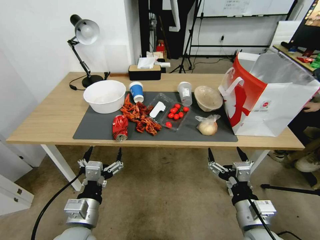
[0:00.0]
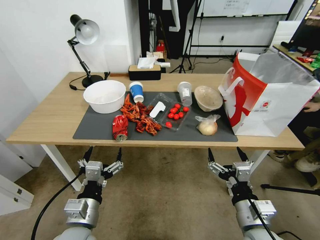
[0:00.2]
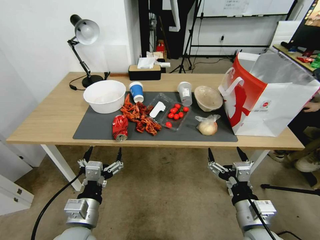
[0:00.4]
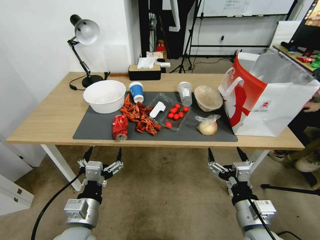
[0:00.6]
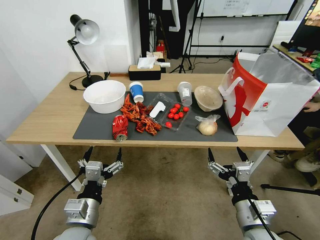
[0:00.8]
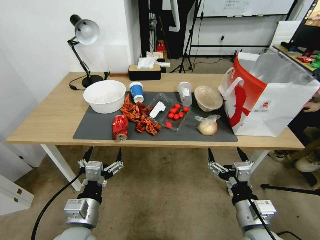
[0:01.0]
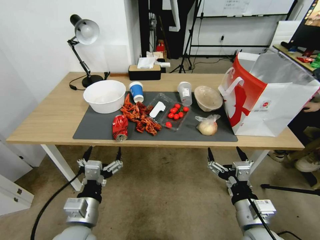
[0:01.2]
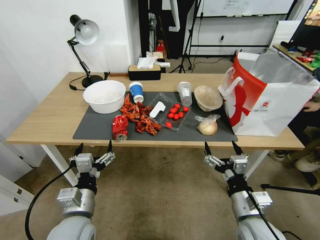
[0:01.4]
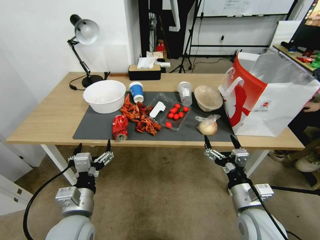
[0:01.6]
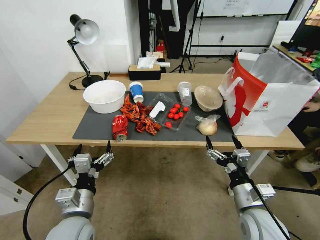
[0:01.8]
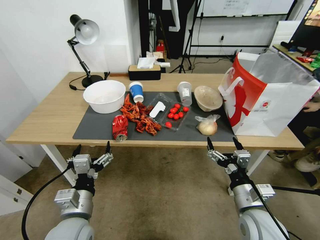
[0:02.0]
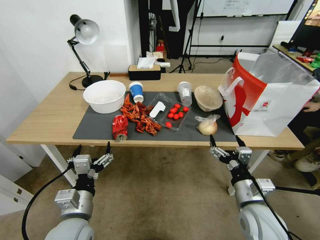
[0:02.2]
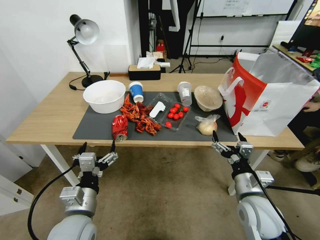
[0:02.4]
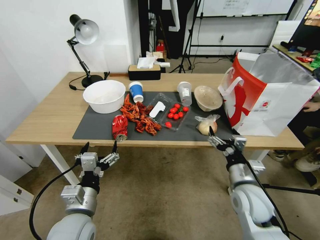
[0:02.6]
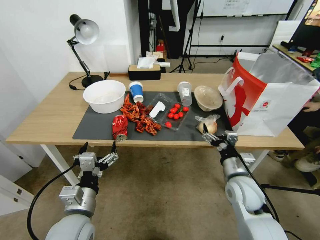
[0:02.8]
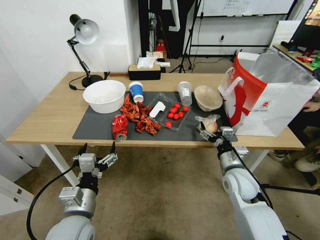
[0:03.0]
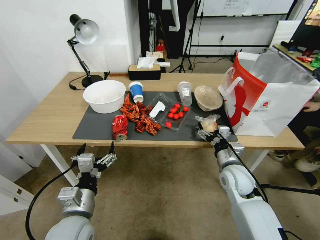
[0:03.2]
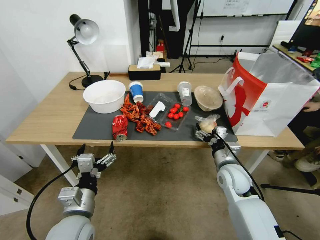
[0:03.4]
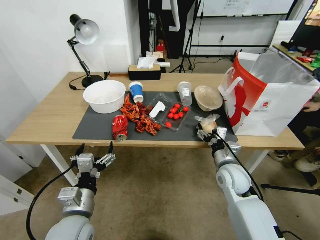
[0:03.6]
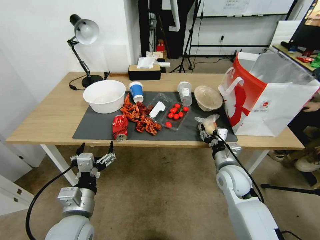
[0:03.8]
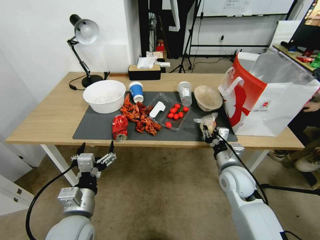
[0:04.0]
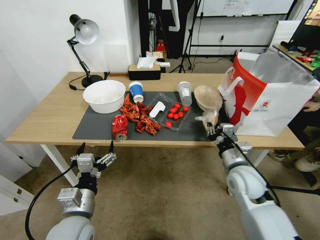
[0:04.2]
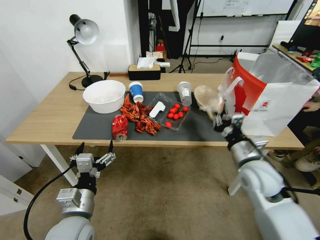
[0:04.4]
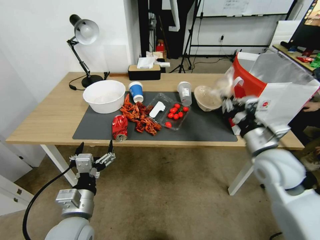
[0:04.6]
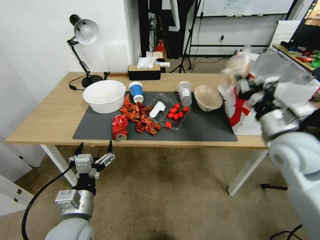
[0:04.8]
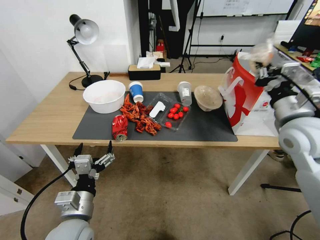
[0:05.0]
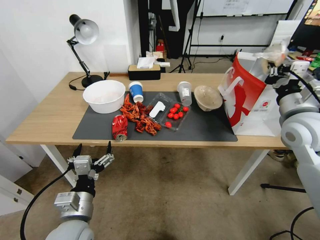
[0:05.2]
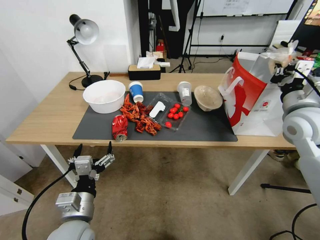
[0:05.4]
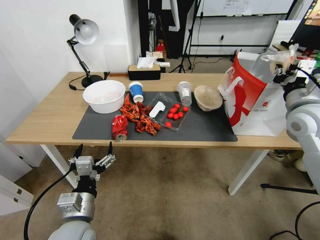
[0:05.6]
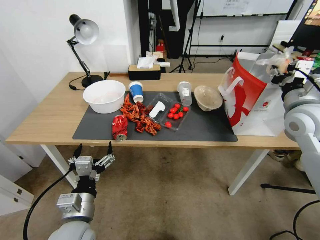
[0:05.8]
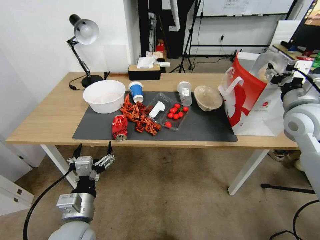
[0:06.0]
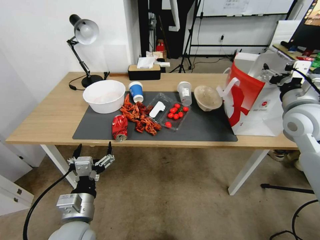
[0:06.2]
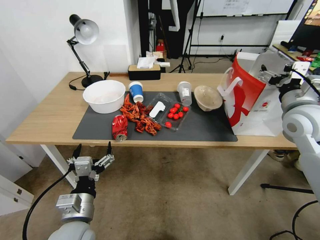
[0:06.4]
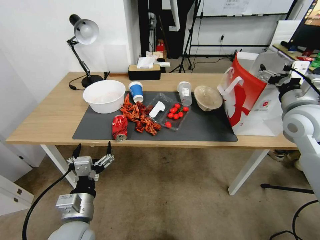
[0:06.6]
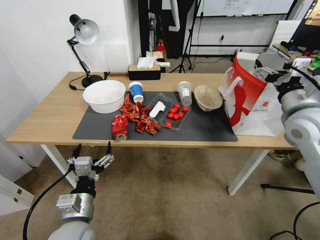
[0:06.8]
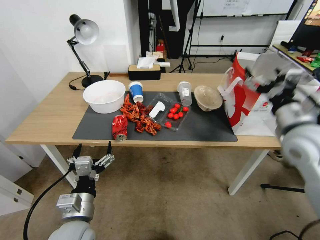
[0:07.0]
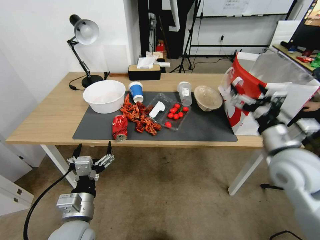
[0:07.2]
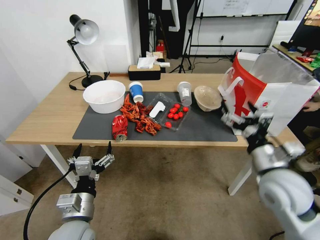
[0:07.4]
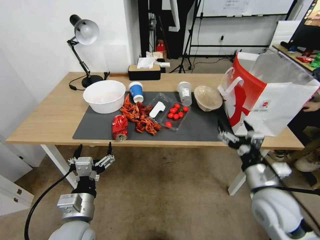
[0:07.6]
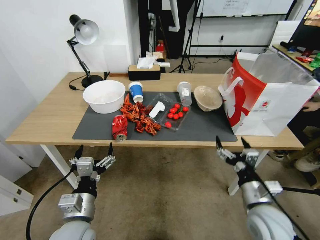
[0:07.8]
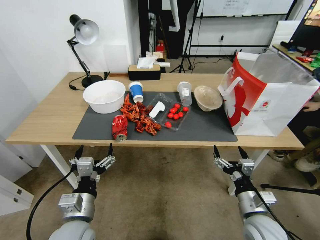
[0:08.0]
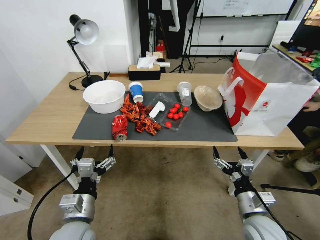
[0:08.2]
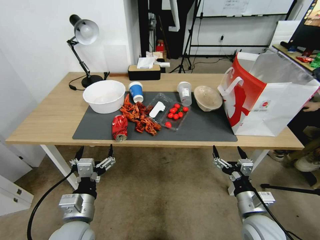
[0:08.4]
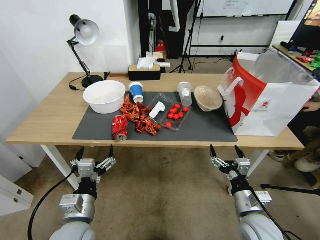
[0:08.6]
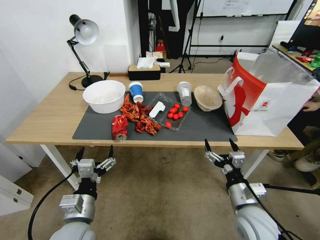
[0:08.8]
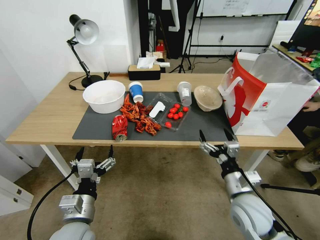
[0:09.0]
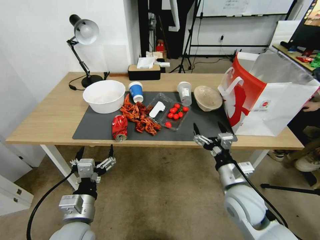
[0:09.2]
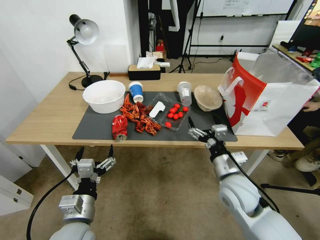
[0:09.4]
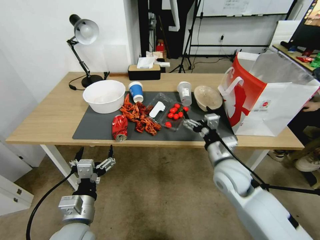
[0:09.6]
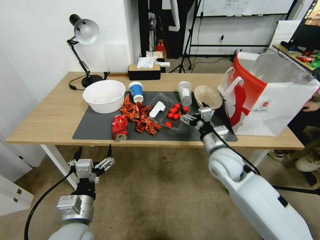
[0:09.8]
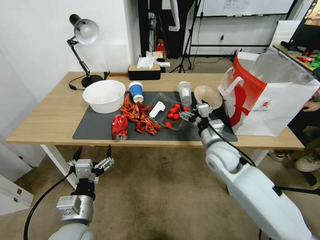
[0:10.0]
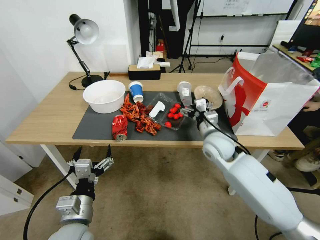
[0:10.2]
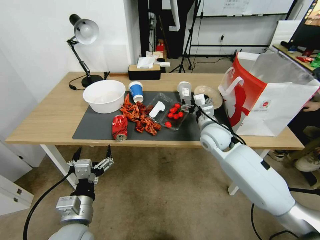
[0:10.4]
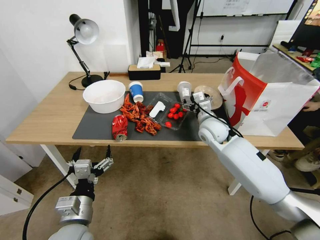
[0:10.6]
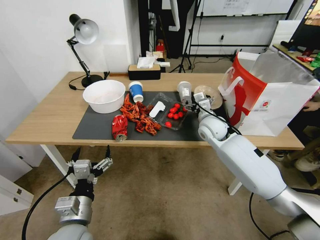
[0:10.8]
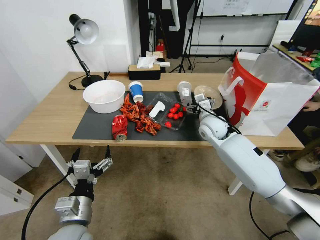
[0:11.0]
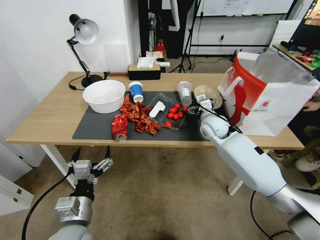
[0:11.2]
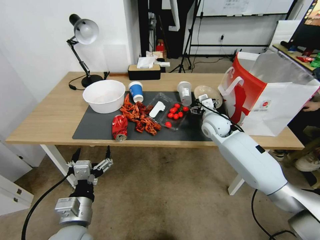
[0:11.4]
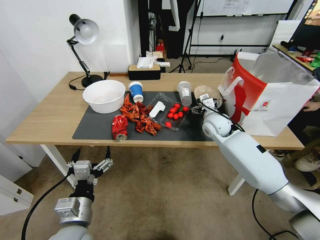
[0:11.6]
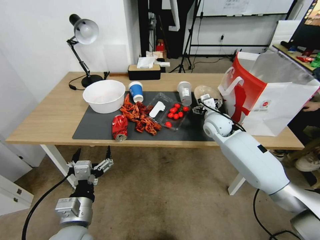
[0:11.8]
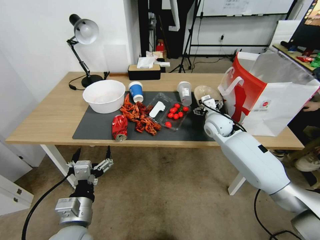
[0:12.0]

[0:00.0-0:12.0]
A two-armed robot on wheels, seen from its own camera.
0:01.6 to 0:03.0: The right gripper moves forward, roughly 15 cm.
0:03.0 to 0:04.4: The right gripper goes about 10 cm upward, and closes its fingers.
0:04.4 to 0:06.0: The right gripper moves upward, to the right and forward, roughly 20 cm, and opens up.
0:06.0 to 0:07.6: The right gripper is displaced downward, backward and to the left by some 25 cm.
0:09.0 to 0:10.4: The right gripper is displaced forward by approximately 20 cm.
0:10.4 to 0:12.0: The right gripper shifts approximately 5 cm forward.

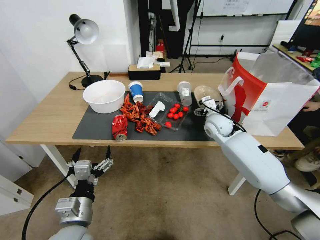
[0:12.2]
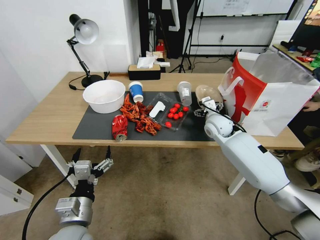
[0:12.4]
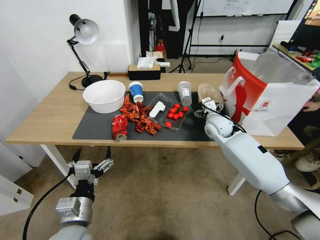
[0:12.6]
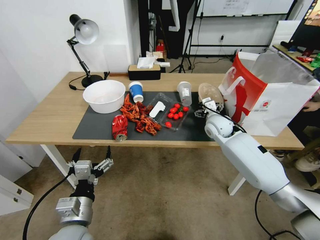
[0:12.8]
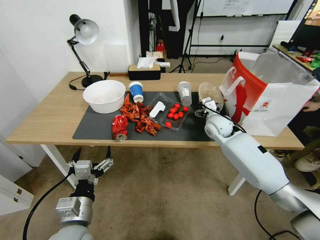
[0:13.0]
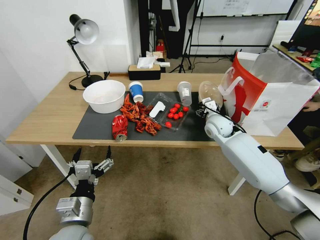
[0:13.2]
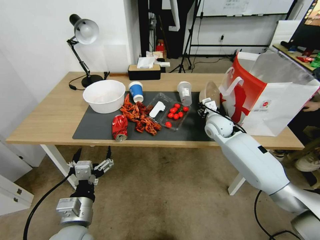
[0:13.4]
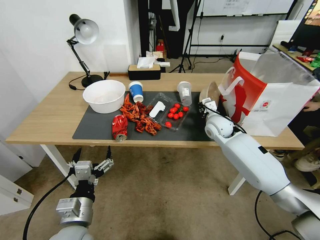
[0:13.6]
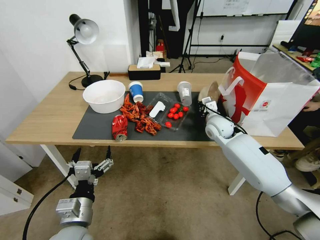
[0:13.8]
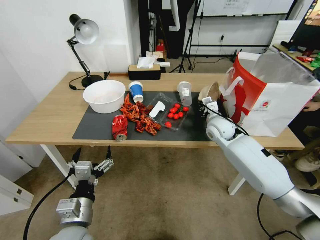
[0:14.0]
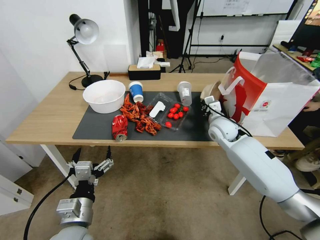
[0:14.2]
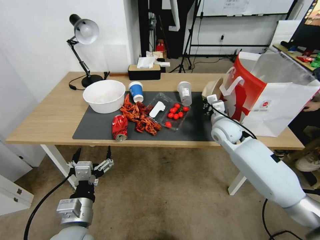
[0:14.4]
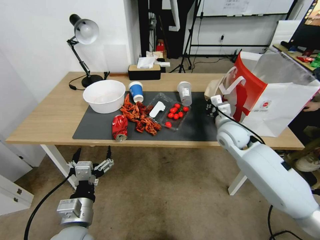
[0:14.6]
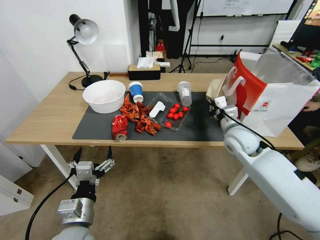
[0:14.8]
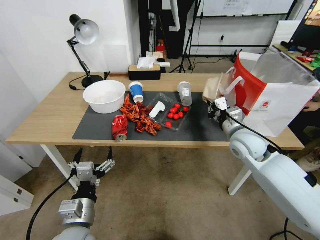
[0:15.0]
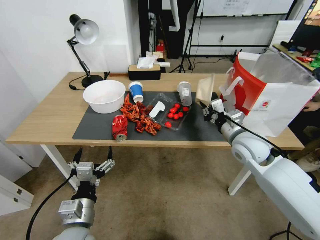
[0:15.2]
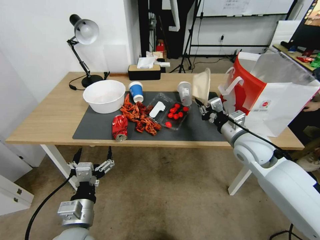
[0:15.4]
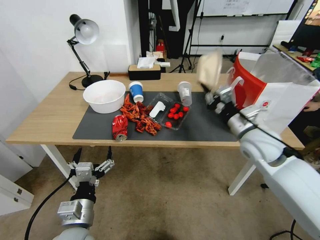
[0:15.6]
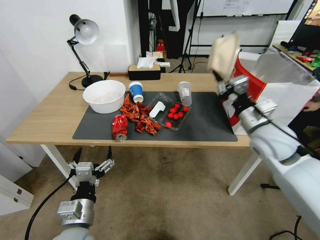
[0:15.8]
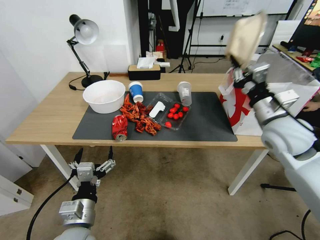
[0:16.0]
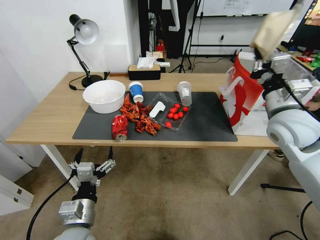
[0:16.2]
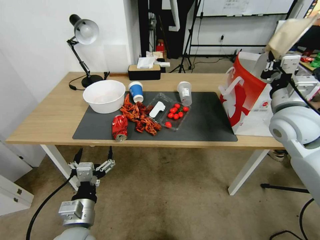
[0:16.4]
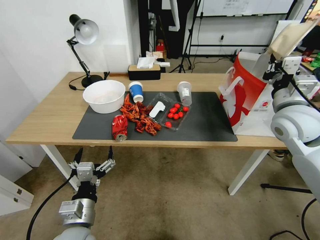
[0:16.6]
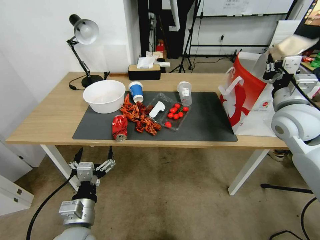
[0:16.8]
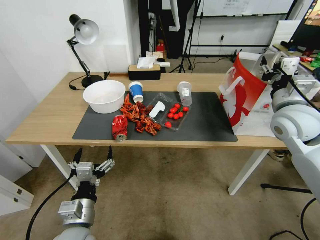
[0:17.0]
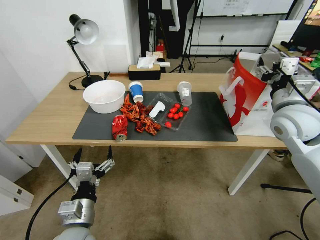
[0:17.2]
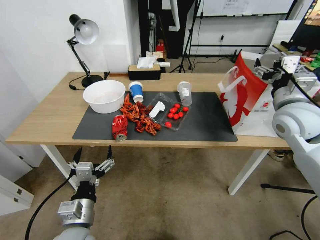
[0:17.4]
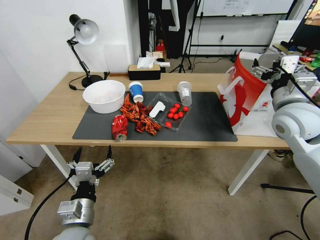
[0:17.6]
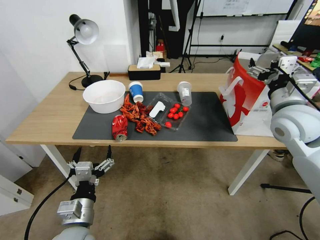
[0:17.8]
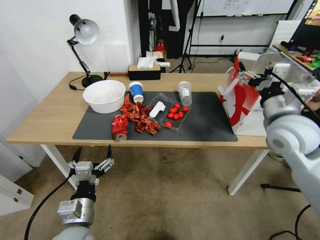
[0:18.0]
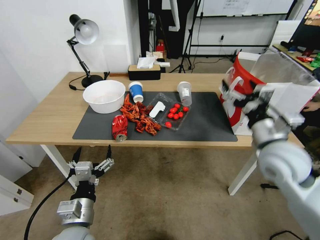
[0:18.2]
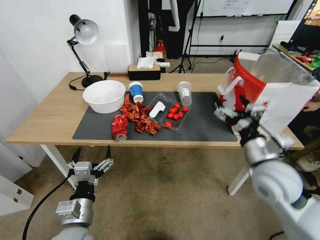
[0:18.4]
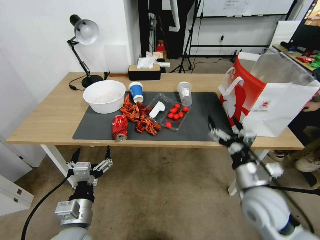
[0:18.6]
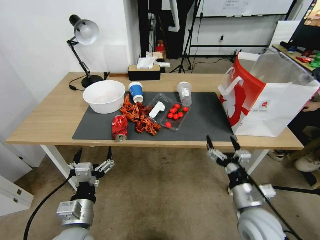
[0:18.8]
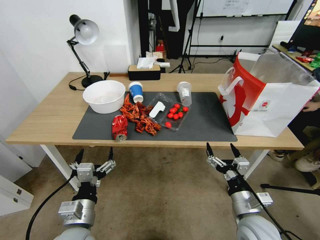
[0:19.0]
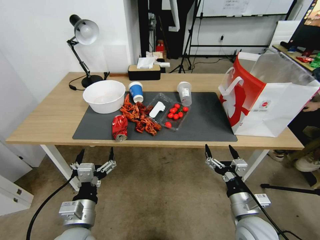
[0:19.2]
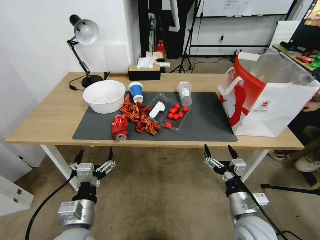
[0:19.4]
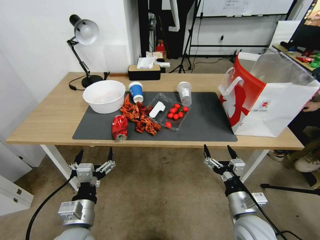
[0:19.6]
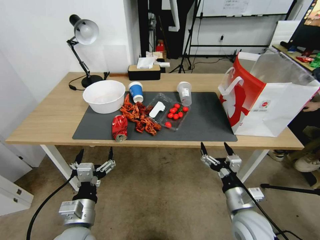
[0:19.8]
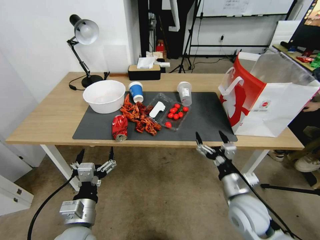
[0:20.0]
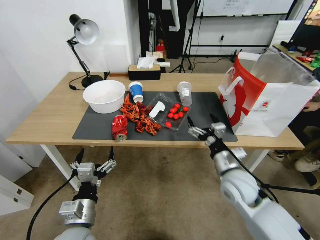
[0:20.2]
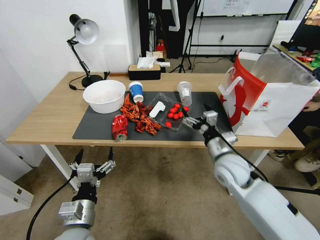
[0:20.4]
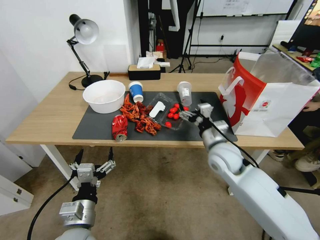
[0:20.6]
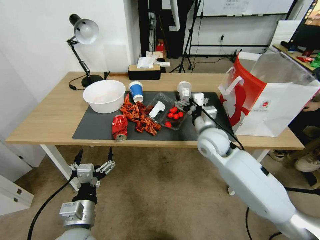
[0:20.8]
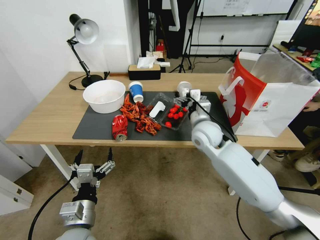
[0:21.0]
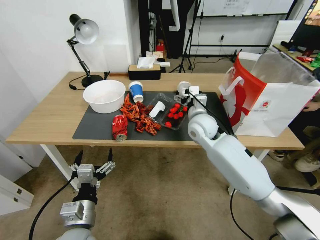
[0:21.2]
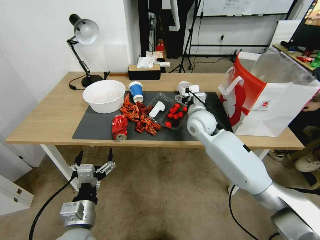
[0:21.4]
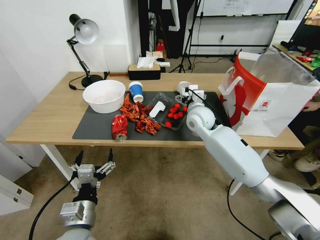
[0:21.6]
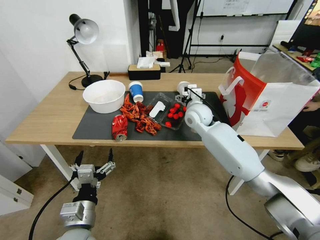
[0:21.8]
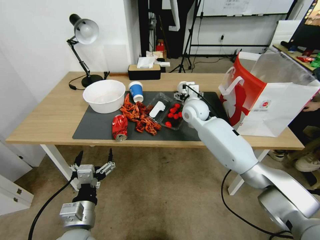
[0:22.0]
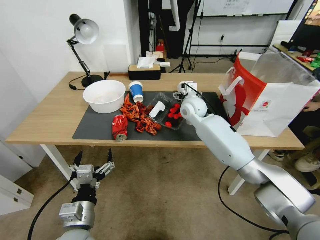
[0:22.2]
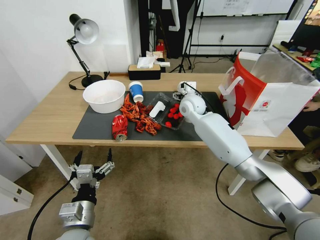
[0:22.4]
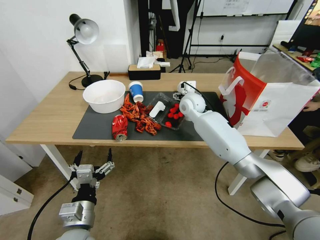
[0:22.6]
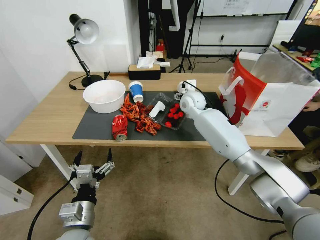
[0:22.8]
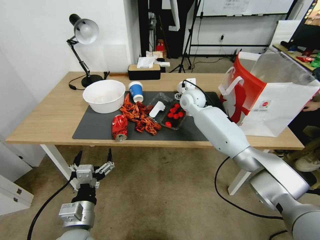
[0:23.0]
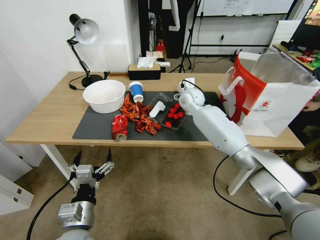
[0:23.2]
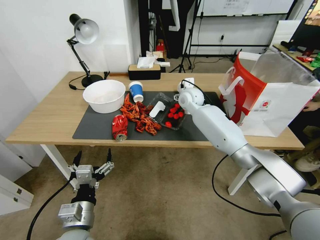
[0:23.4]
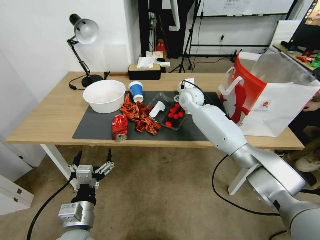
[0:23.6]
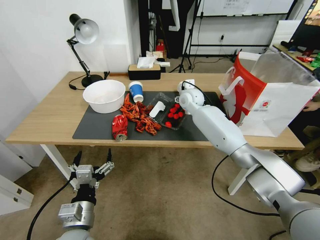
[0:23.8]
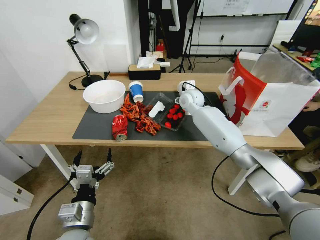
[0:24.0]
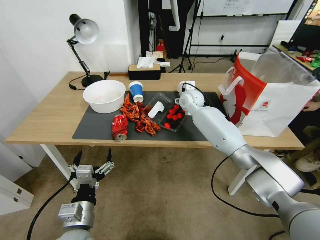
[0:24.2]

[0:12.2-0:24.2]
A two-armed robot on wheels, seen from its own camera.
0:12.2 to 0:13.8: The right gripper closes up.
0:13.8 to 0:15.2: The right gripper goes about 10 cm backward.
0:15.2 to 0:16.6: The right gripper goes approximately 15 cm upward and to the right.
0:16.6 to 0:18.2: The right gripper shifts approximately 5 cm backward, and opens.
0:18.2 to 0:19.8: The right gripper travels downward and backward by about 25 cm.
0:19.8 to 0:21.2: The right gripper moves forward, upward and to the left, about 30 cm.
0:21.2 to 0:22.6: The right gripper shifts approximately 10 cm forward.
0:22.6 to 0:24.2: The grippers make only small movements.
